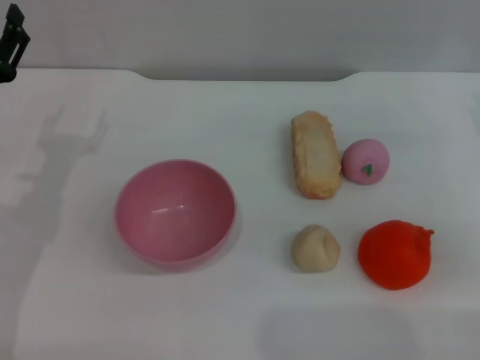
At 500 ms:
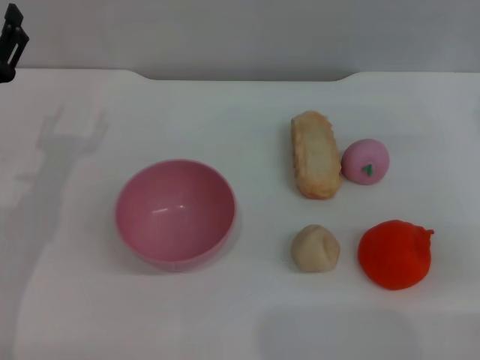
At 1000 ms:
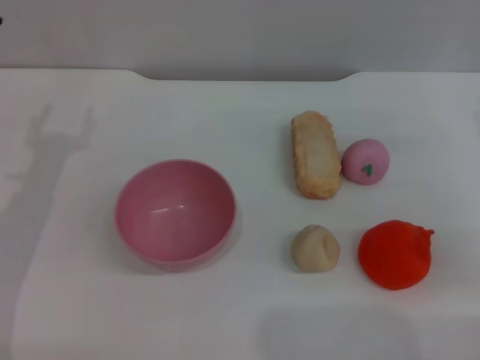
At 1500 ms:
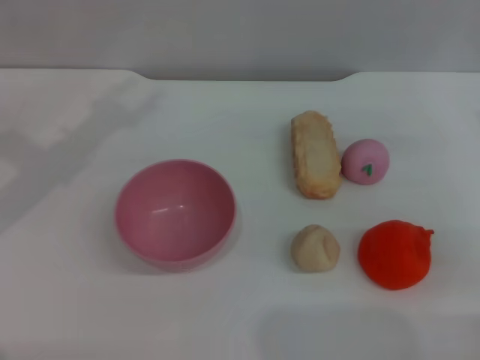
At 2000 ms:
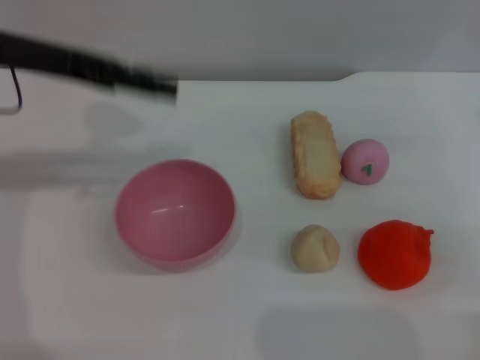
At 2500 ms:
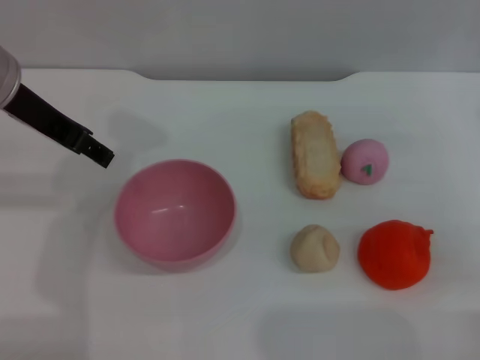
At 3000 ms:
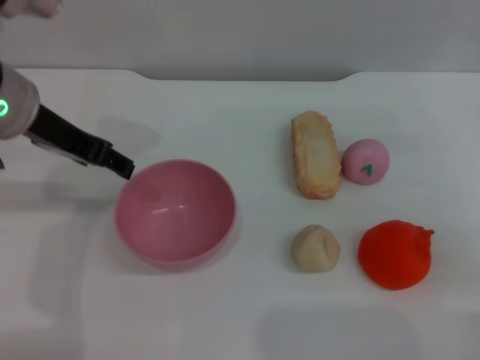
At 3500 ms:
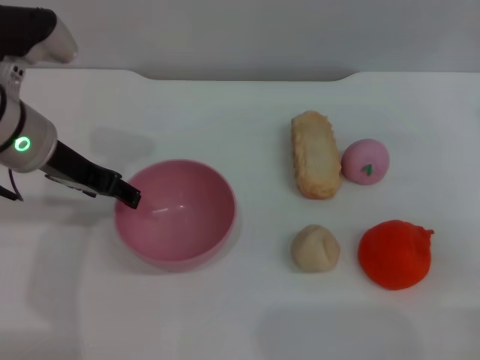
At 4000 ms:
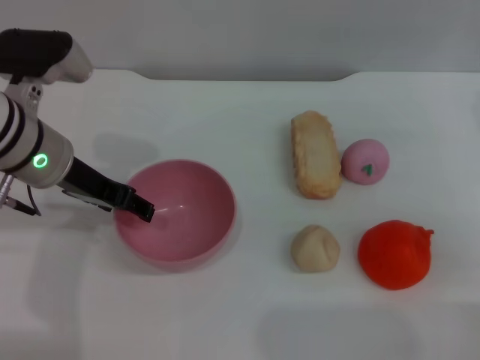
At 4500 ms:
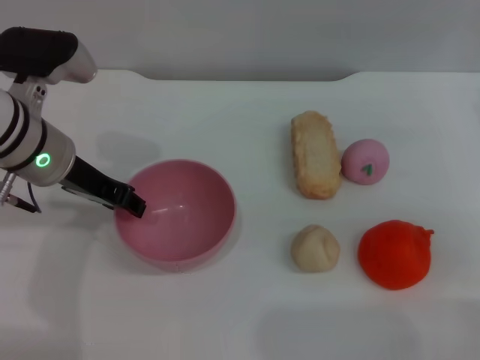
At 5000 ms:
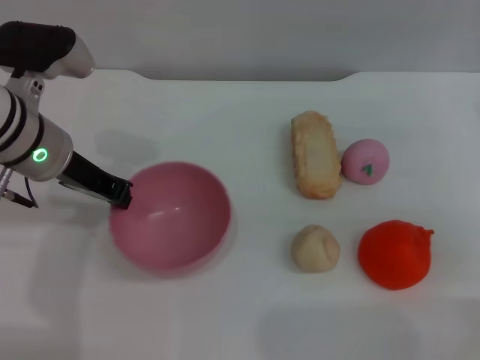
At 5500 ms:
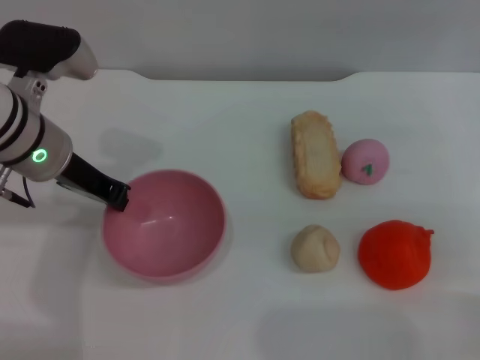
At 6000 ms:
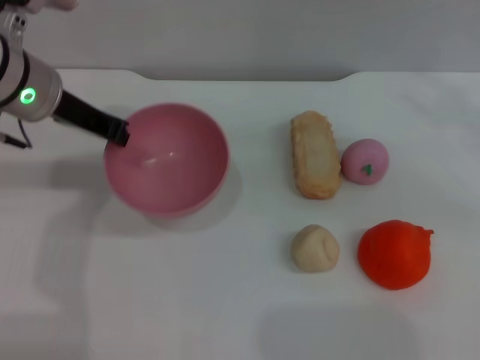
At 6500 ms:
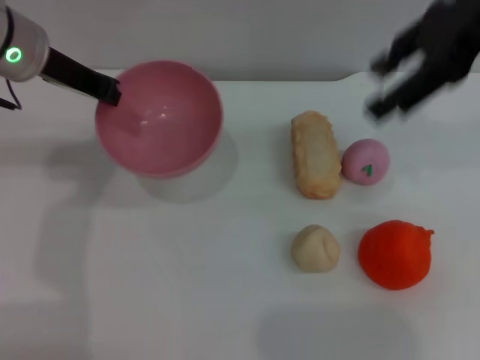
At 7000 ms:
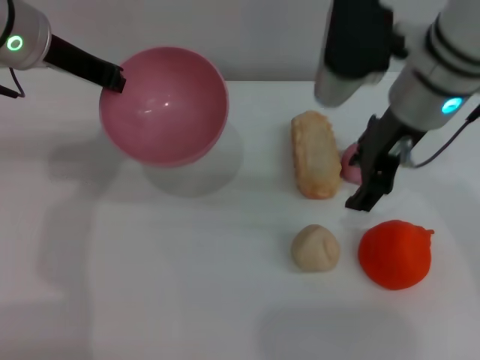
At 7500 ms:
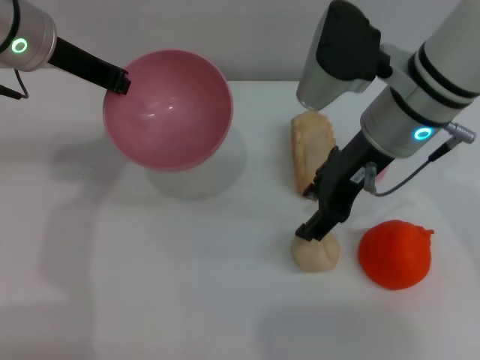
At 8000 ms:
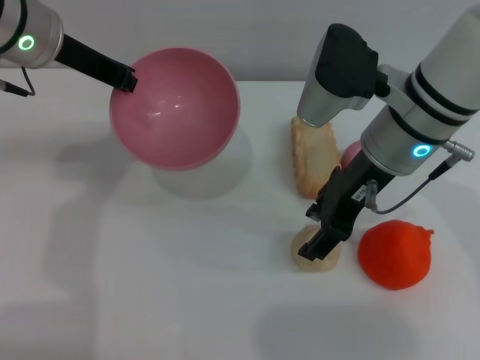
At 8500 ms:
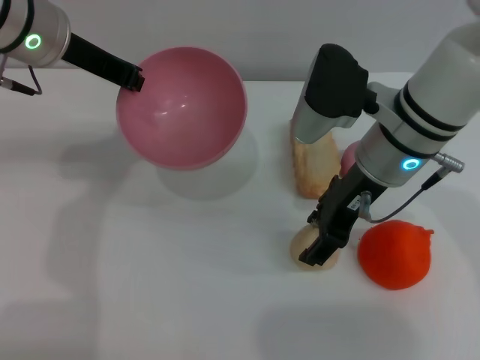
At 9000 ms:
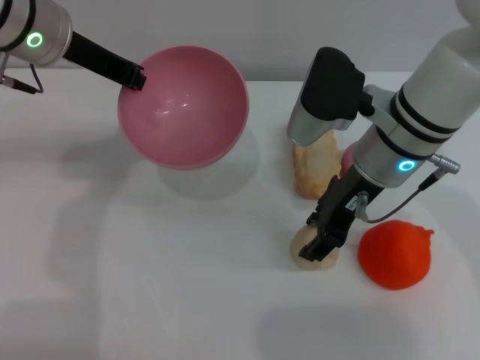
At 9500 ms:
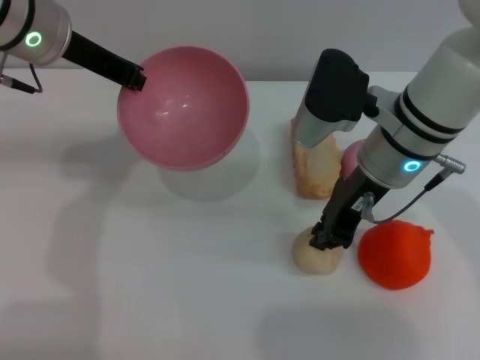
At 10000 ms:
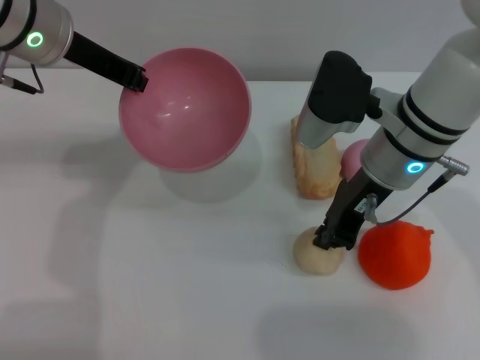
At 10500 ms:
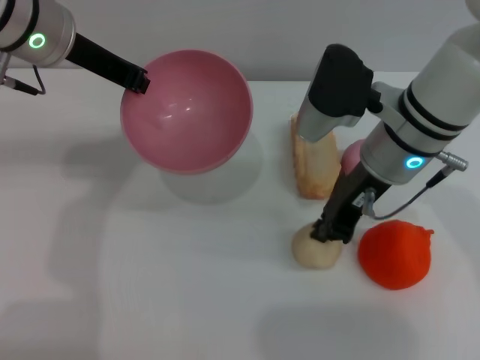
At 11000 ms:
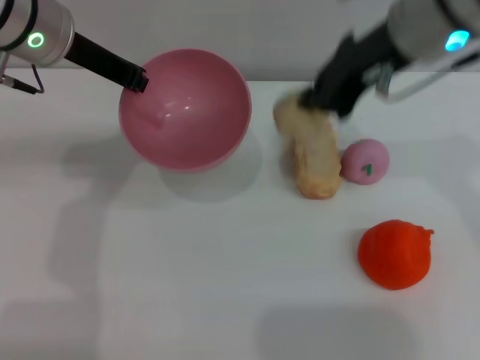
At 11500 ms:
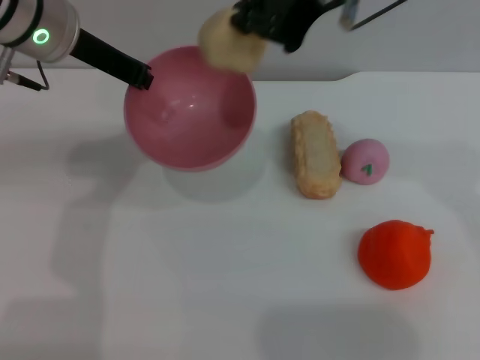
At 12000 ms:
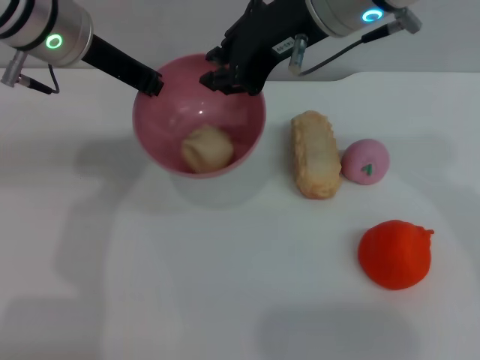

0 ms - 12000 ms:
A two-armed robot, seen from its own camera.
Task of the whole recording: put the egg yolk pastry into the pink bowl and pour it out repeatedly.
Step, 0 ms - 6000 ms: Pick up the bowl with the left gripper.
Step, 6500 ms - 10500 ms: Pick up the egg yolk pastry with the right gripper.
0 ms - 2000 ms: The left gripper moves upward, roughly 15 cm.
2000 ms - 4000 ms: The left gripper heads downward, covering approximately 10 cm.
4000 ms - 6000 ms: The left gripper changes place by approximately 5 cm, and closes; the right gripper travels upward by approximately 15 cm.
6000 ms - 8000 ms: The right gripper goes roughly 25 cm to the left and downward.
8000 ms - 10000 ms: The right gripper closes.
10000 ms - 12000 ms: The right gripper goes about 15 cm upward.

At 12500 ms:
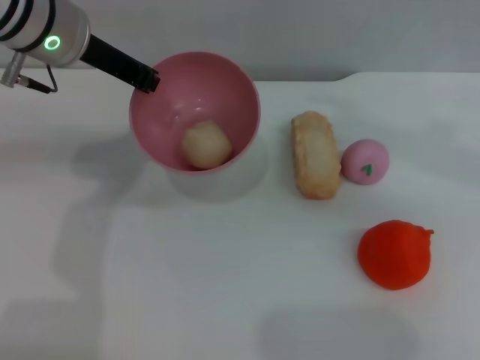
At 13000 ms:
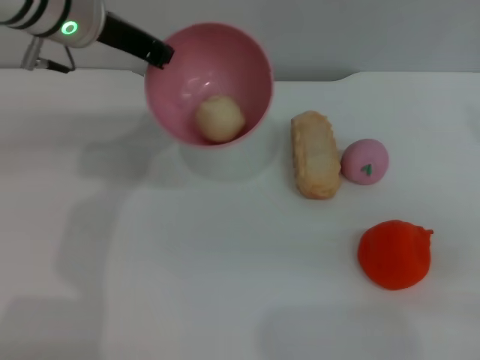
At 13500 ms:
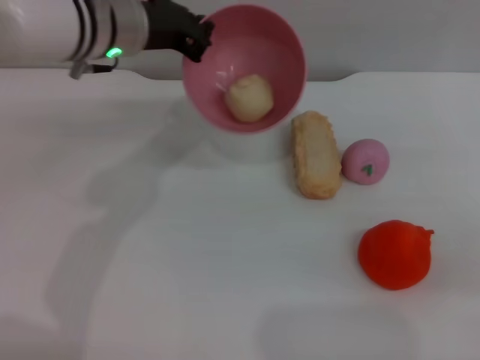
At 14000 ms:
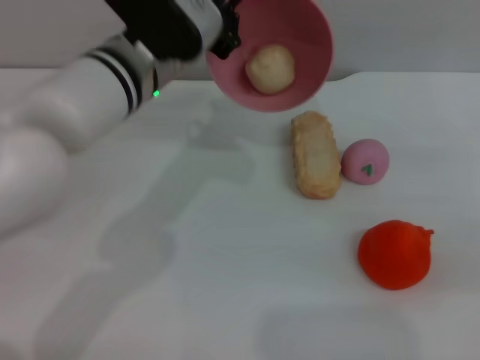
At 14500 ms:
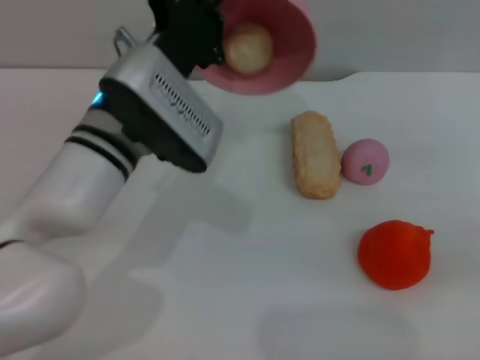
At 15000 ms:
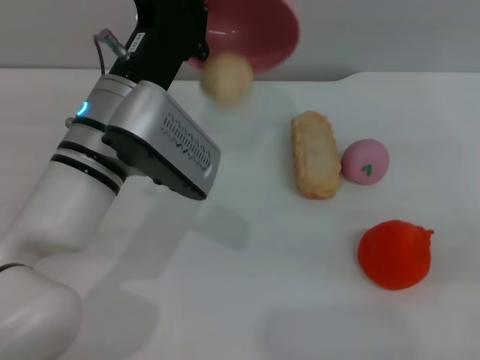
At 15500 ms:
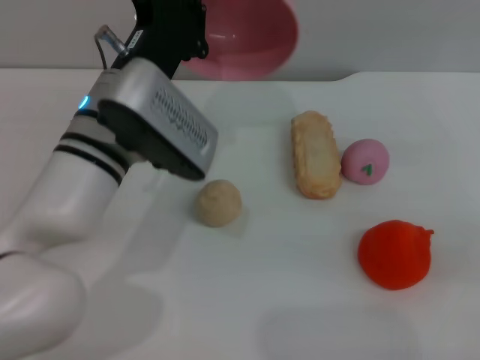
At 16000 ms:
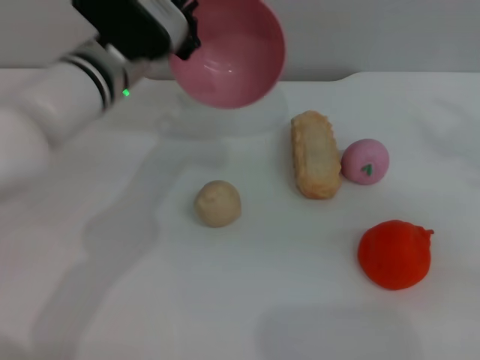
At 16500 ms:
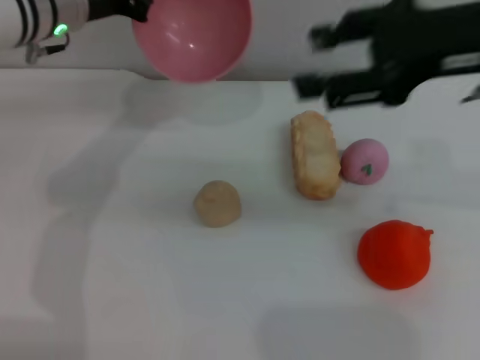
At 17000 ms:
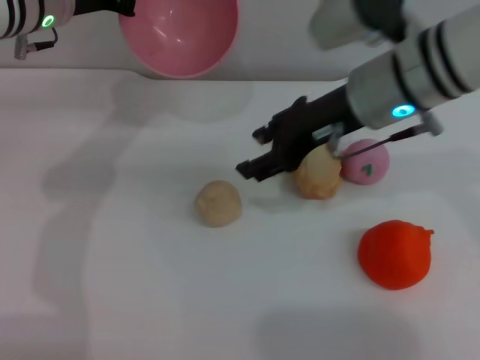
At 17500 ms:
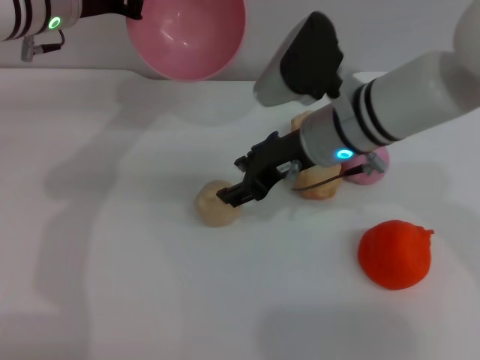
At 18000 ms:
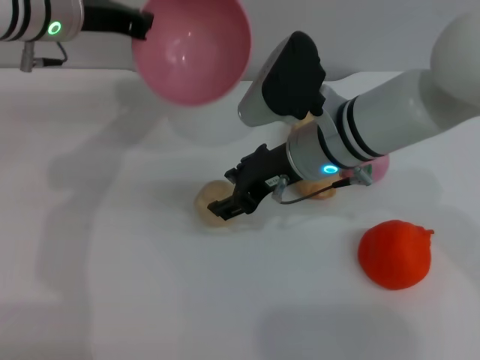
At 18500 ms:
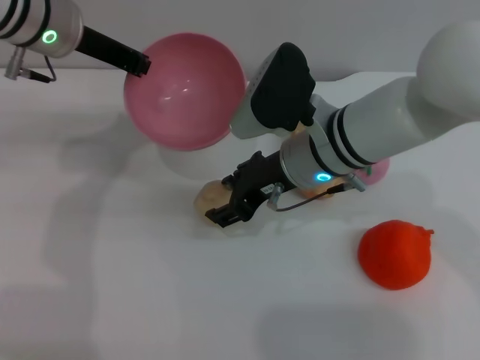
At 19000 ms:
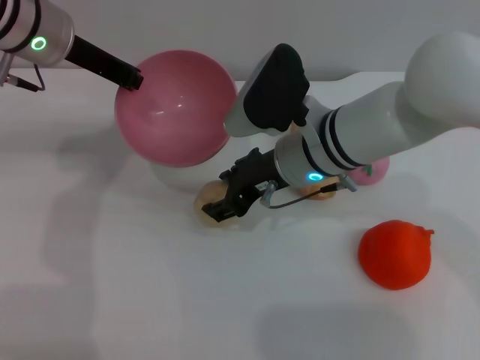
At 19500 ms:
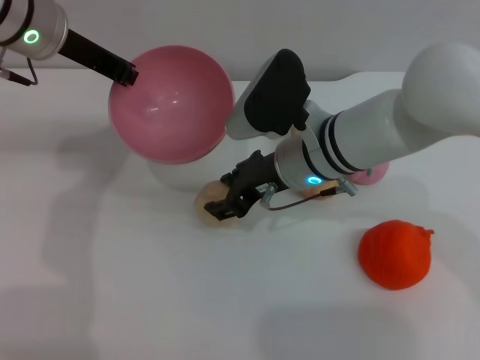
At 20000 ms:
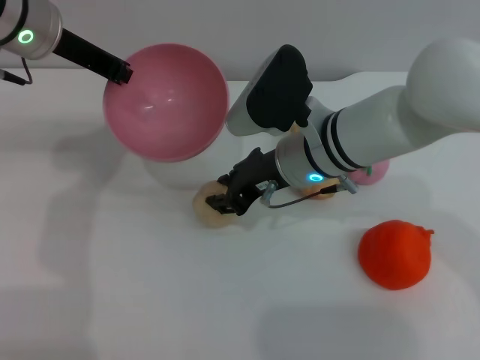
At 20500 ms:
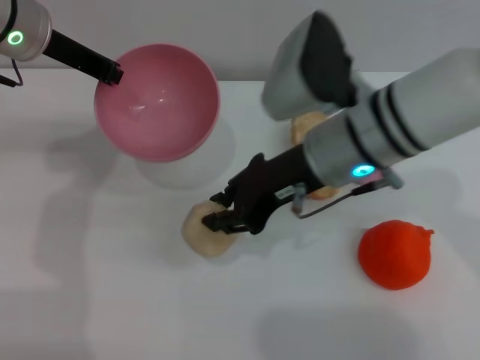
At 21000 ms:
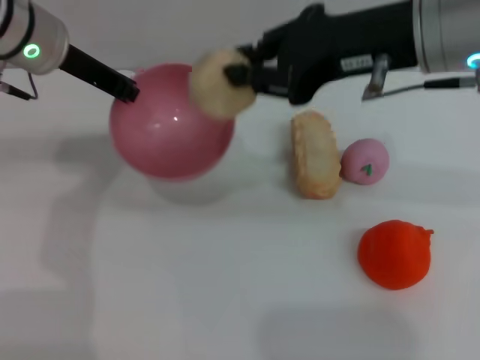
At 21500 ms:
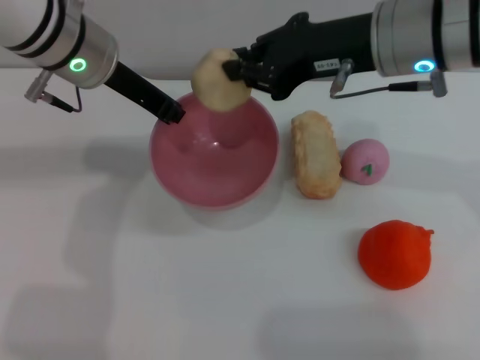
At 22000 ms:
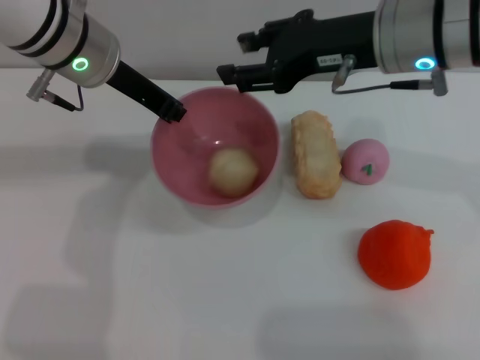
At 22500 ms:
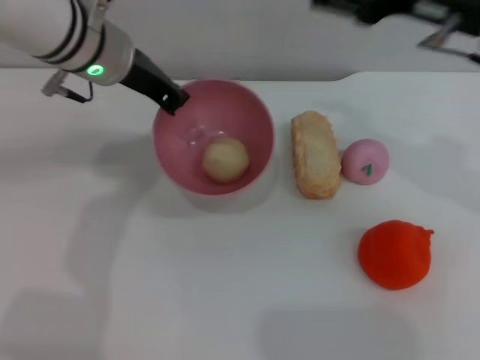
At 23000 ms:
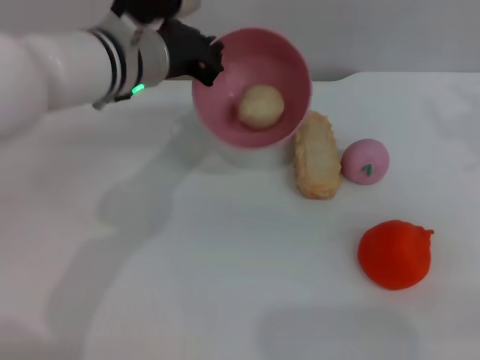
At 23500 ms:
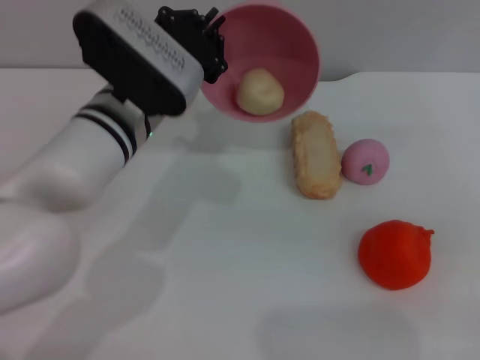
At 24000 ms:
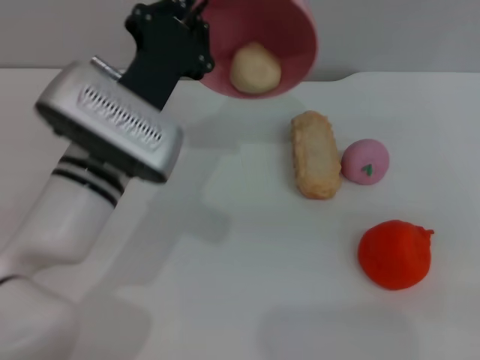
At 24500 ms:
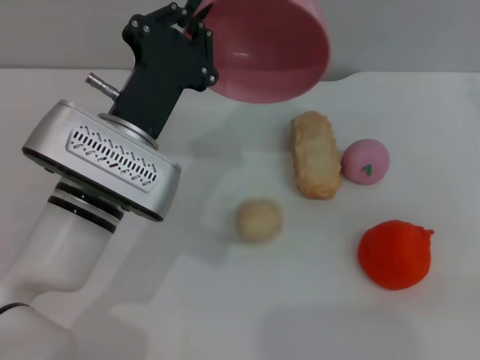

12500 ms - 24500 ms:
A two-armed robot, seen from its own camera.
Task of the whole recording: put the egg yolk pastry into the pink bowl and pour it out repeatedly.
Step, 12500 ms - 15500 ms: Pour the egg yolk pastry out of bowl.
Step, 16000 ms - 20000 ms: Pick up the egg yolk pastry with the right gripper.
Step, 21000 ms - 22000 ms: Place the egg yolk pastry into the bowl.
12500 ms - 14500 ms: The right gripper heads to the right and downward, covering about 20 cm. Meanwhile the left gripper goes roughly 15 cm downward, to the right and backward.
14500 ms - 16500 ms: The left gripper travels forward, to the left and upward by about 15 cm. The right gripper travels to the left and upward by about 20 cm.
16500 ms - 18500 ms: The right gripper travels downward and to the left by some 20 cm.
18500 ms - 20500 ms: The right gripper is displaced upward by roughly 5 cm, and closes up.
20500 ms - 22500 ms: The left gripper shifts approximately 5 cm to the right. Meanwhile the right gripper heads to the right and upward, covering about 15 cm, and opens up.
22500 ms - 24500 ms: The left gripper heads backward and downward, covering approximately 15 cm; the right gripper shifts approximately 15 cm to the right.

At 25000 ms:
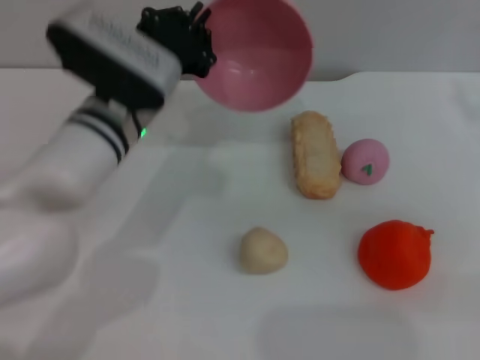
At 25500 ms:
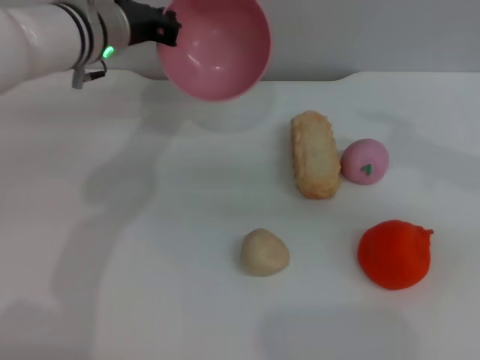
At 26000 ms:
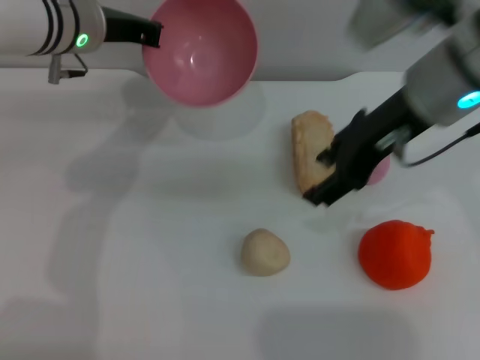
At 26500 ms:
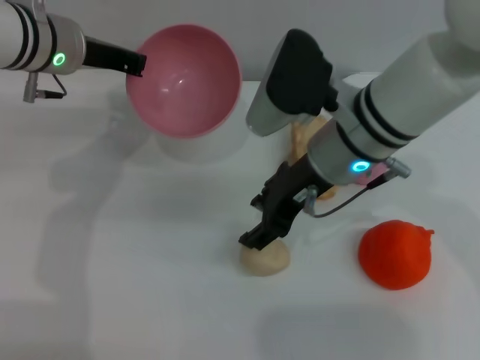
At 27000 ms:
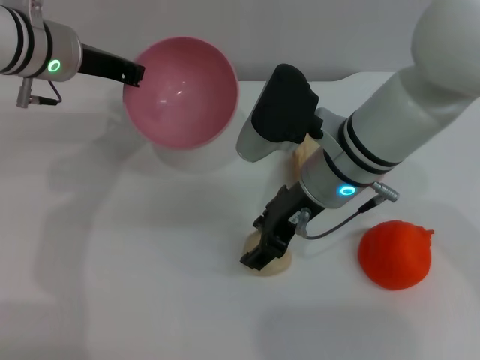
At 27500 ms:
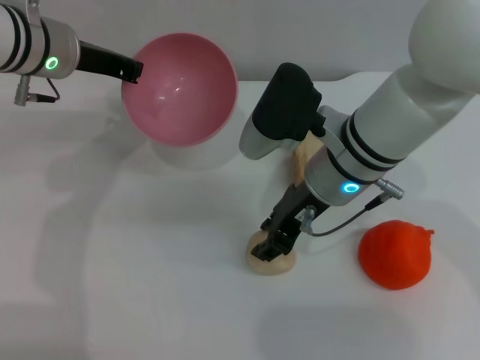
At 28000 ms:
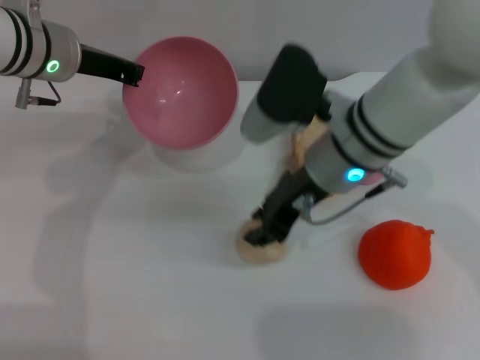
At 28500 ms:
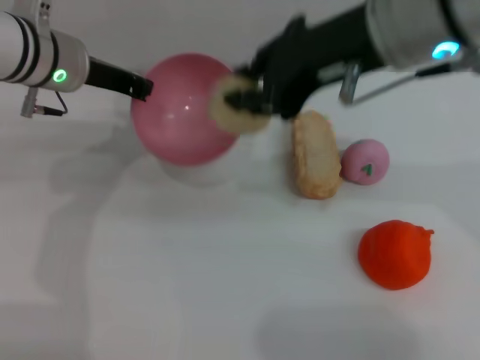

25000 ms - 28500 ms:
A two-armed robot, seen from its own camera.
Task of the whole recording: put the egg yolk pastry into the pink bowl and pour it out repeatedly.
Step, 25000 ms - 28000 ms: Pick up the egg yolk pastry with the right gripper.
25000 ms - 27000 ms: The right gripper is displaced to the left by about 25 cm, while the left gripper goes some 10 cm to the left, forward and upward.
27000 ms - 28500 ms: The right gripper is displaced upward by some 15 cm, and closes.
